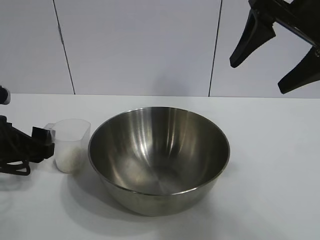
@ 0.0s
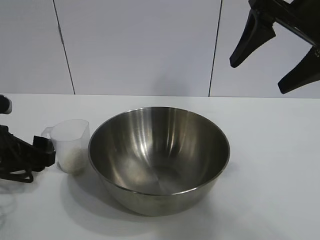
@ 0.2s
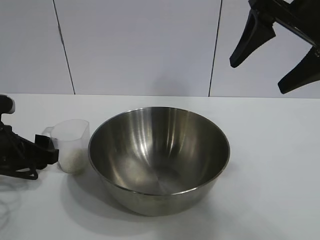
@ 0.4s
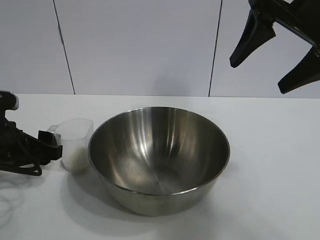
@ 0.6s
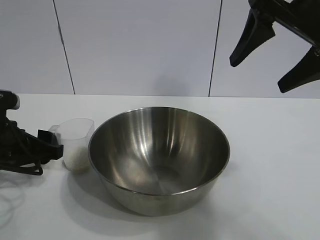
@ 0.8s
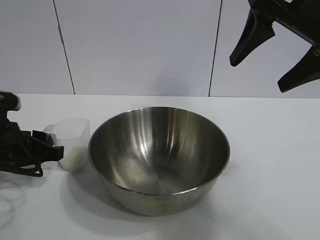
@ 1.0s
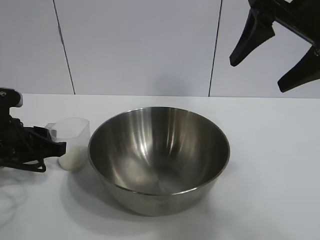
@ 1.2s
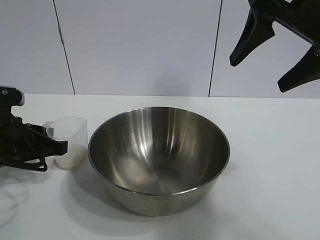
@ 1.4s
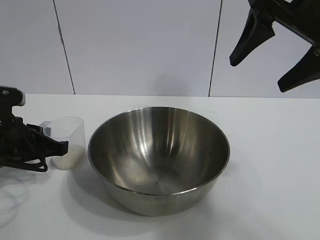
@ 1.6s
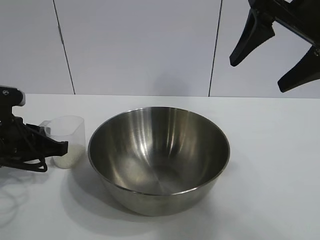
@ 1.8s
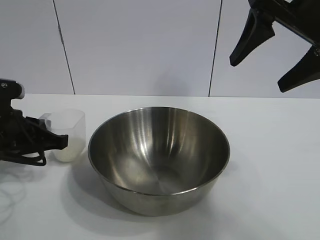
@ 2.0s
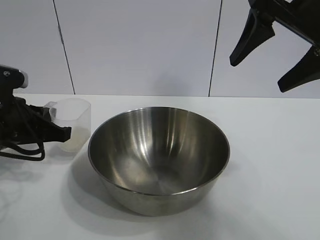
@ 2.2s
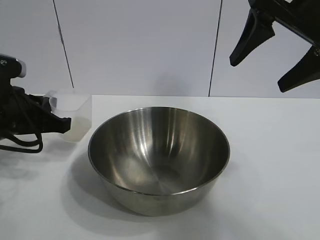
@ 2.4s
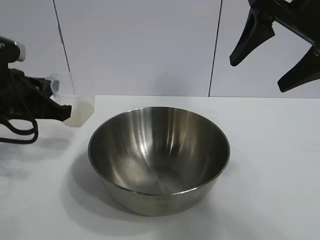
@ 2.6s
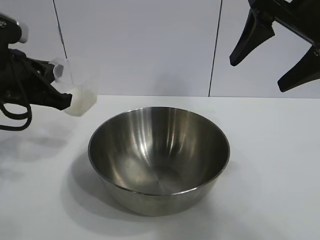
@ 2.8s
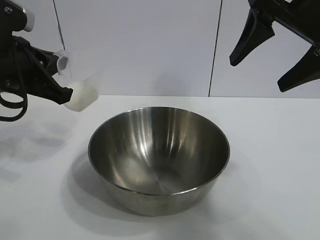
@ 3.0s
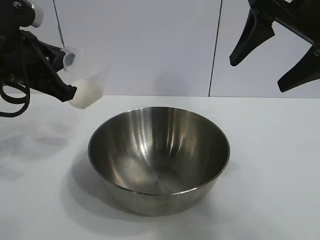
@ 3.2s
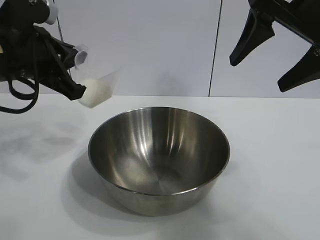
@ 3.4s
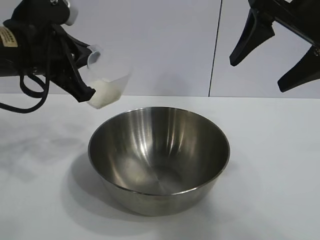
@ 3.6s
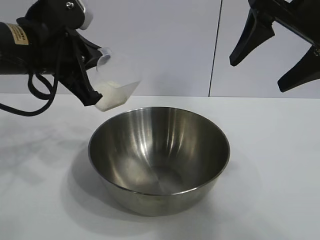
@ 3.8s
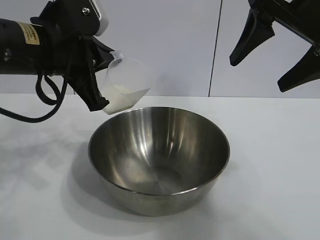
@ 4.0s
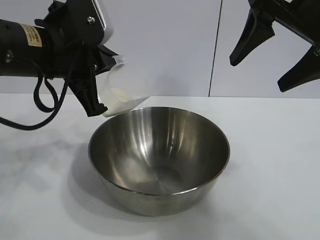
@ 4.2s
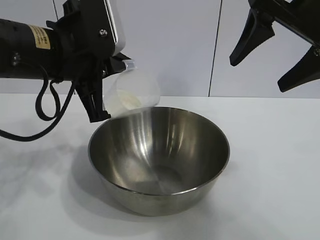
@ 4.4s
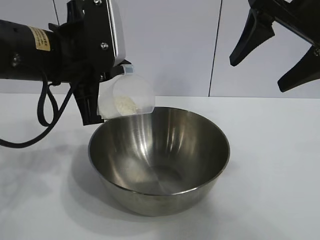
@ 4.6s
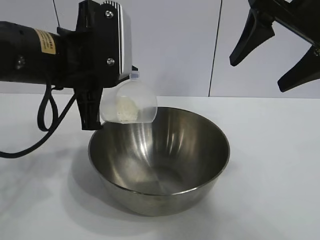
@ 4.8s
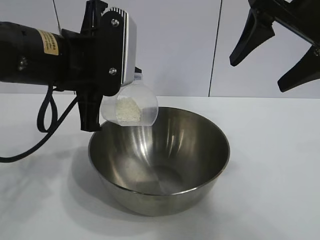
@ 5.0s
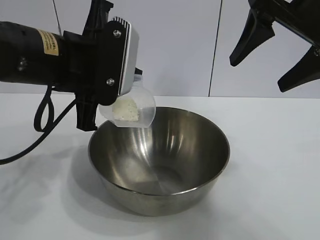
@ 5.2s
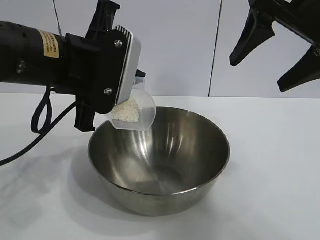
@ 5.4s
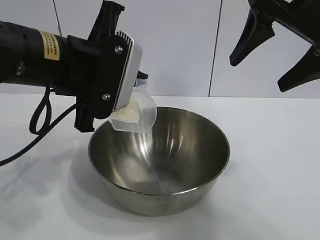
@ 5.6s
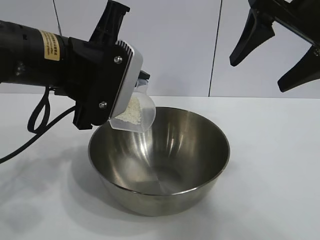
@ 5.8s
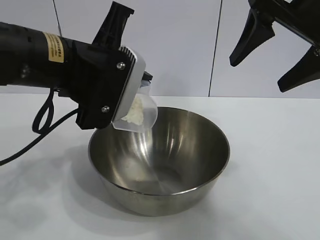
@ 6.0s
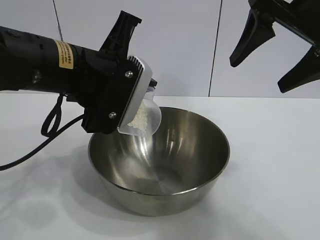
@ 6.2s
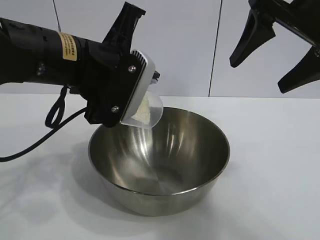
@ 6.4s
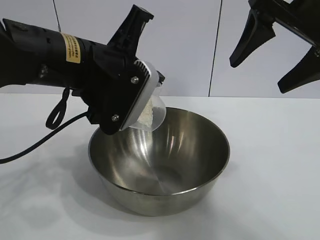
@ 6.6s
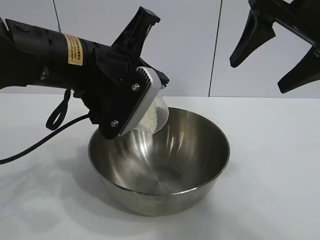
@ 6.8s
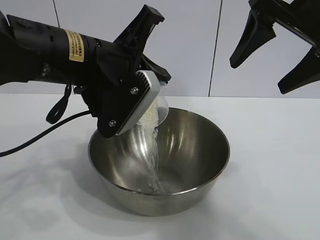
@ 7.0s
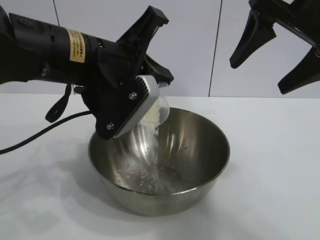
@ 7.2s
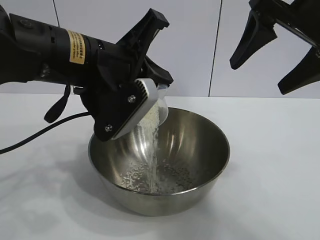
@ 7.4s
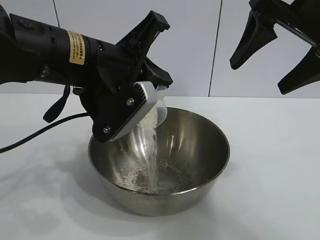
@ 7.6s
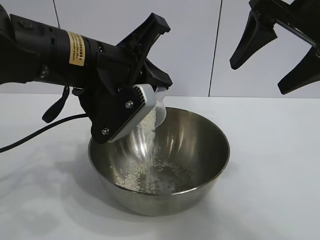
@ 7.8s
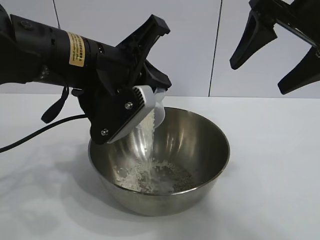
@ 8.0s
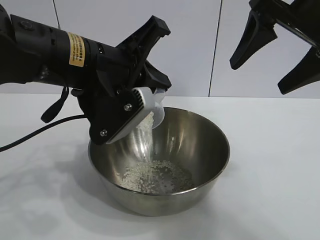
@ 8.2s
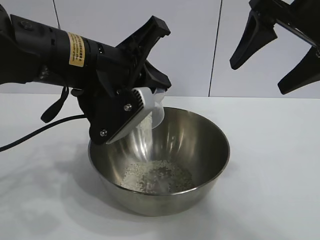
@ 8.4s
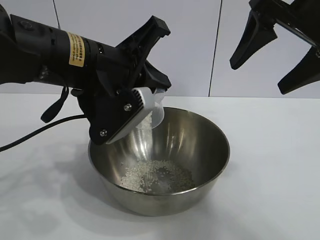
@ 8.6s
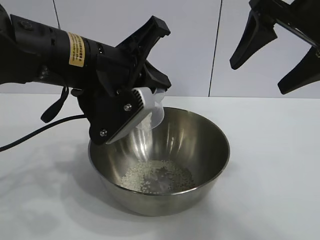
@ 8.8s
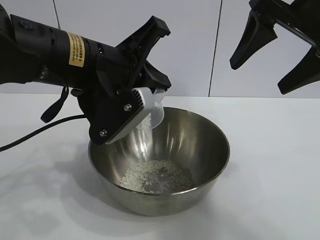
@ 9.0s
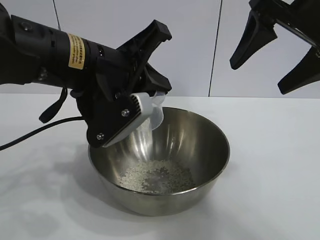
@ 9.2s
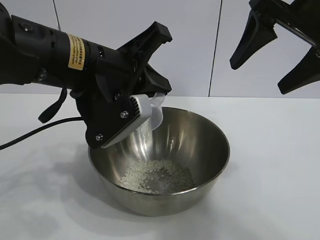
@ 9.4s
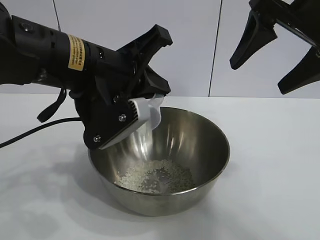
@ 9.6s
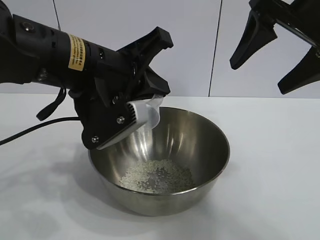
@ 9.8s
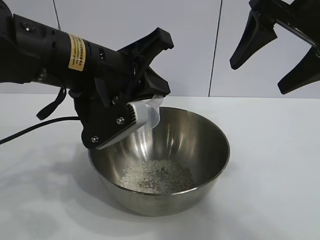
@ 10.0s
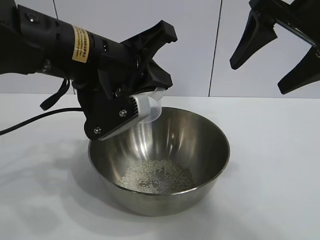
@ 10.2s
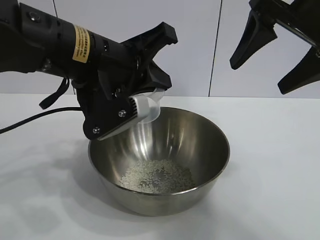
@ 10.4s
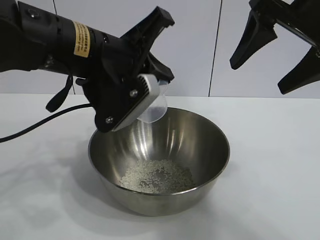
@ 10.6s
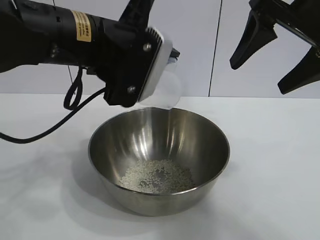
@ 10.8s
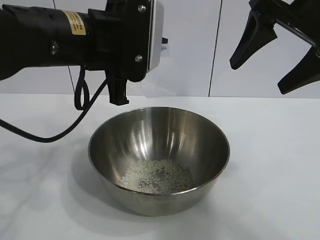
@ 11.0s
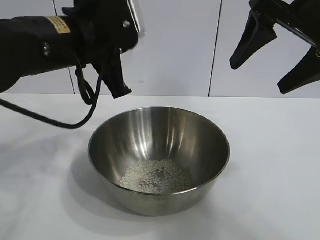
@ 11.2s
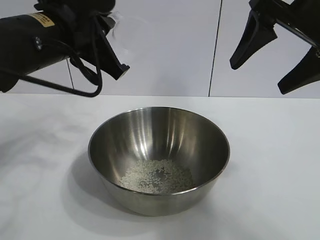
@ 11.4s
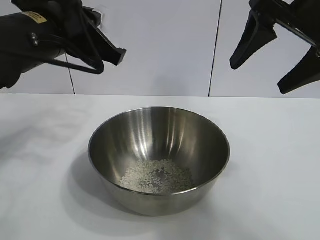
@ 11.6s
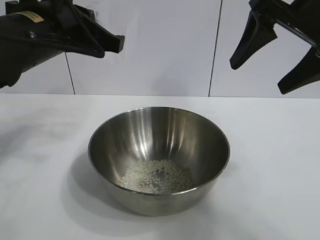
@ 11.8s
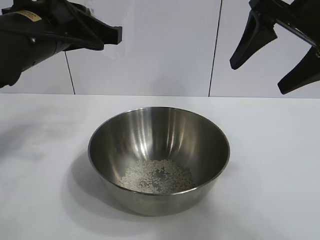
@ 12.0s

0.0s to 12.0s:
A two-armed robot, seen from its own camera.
Task of the whole recording: the right gripper grasp the rice container and place it in the center of the table, the left gripper grasp the rice scoop and pour the rice into the rice container.
Step, 2.0s to 10.2s: Pour the rice from the cup into the bowl with the left gripper.

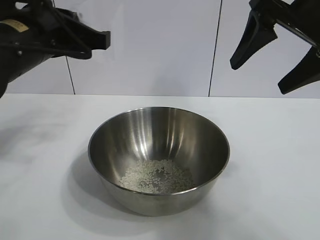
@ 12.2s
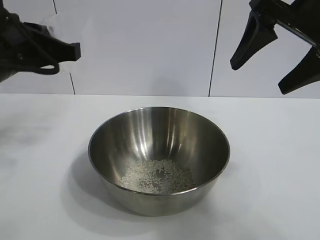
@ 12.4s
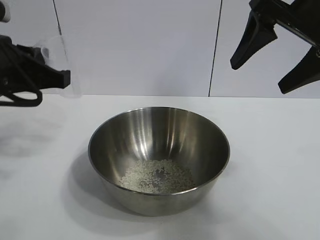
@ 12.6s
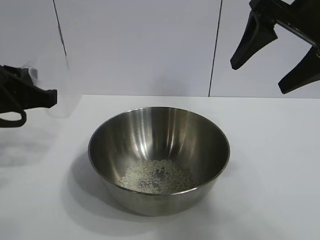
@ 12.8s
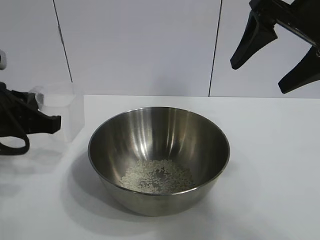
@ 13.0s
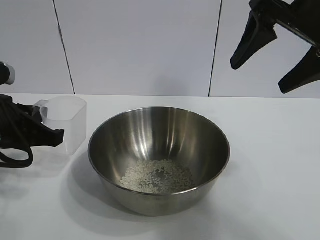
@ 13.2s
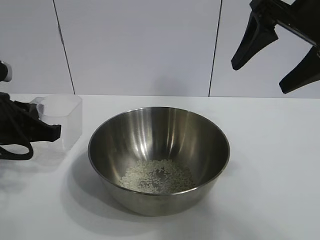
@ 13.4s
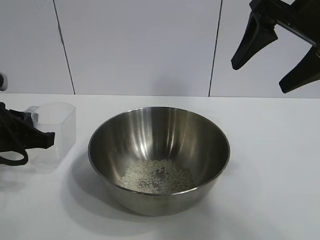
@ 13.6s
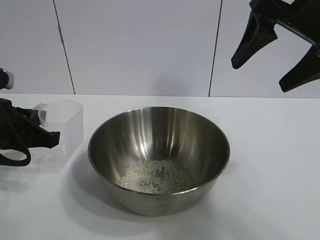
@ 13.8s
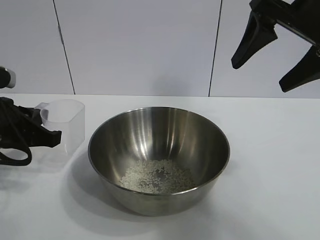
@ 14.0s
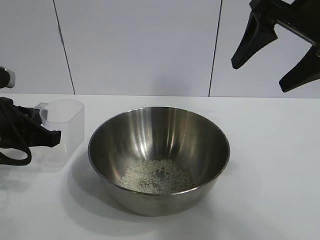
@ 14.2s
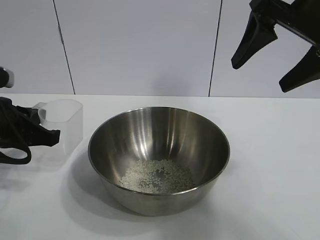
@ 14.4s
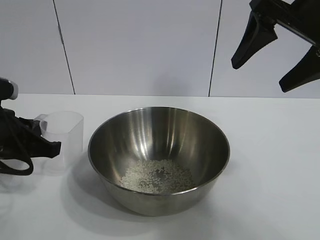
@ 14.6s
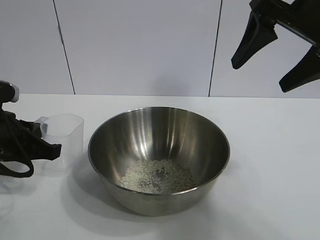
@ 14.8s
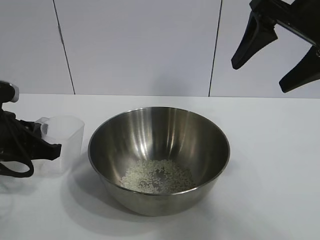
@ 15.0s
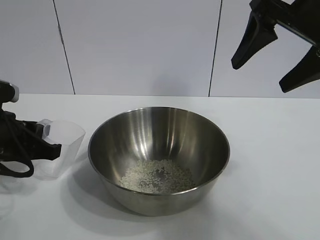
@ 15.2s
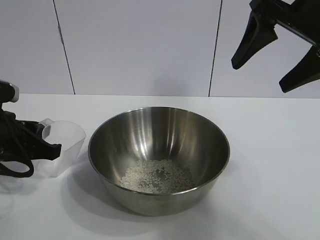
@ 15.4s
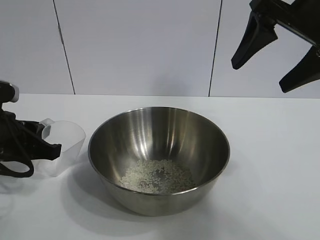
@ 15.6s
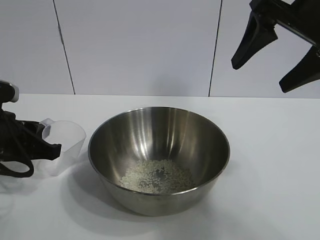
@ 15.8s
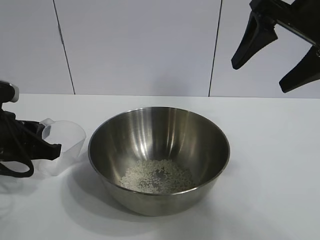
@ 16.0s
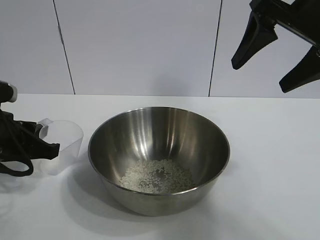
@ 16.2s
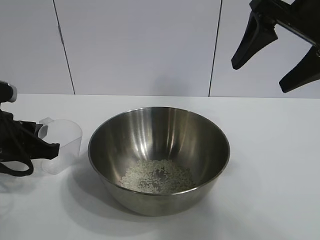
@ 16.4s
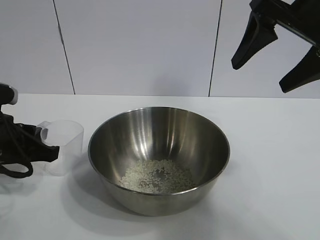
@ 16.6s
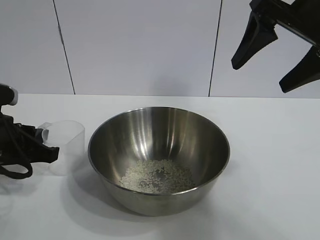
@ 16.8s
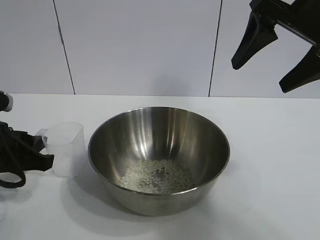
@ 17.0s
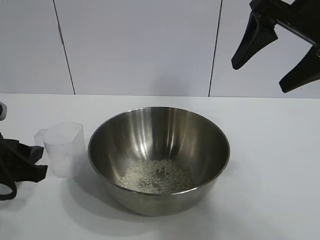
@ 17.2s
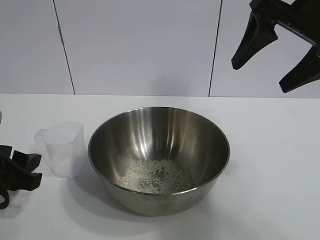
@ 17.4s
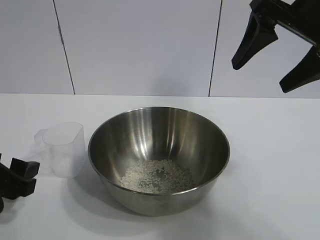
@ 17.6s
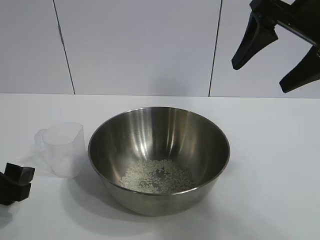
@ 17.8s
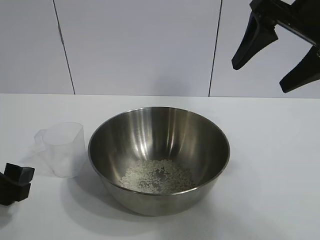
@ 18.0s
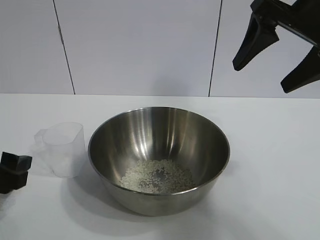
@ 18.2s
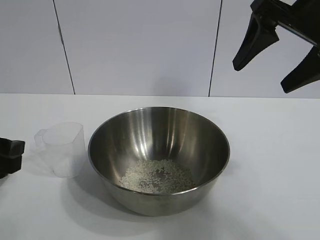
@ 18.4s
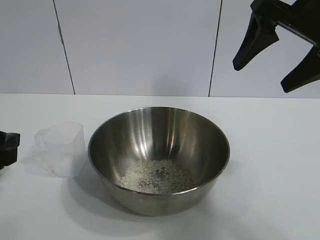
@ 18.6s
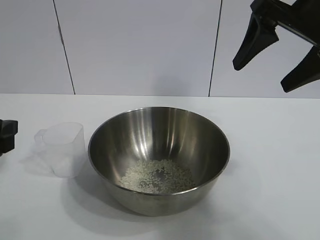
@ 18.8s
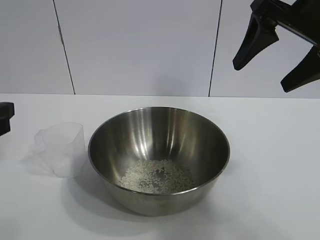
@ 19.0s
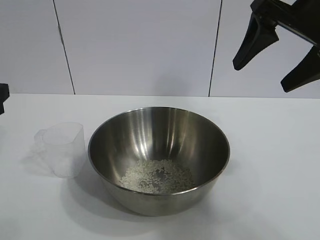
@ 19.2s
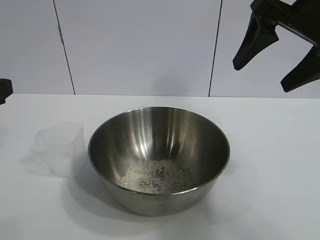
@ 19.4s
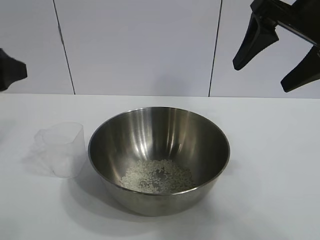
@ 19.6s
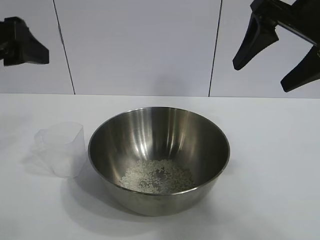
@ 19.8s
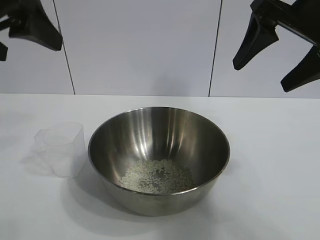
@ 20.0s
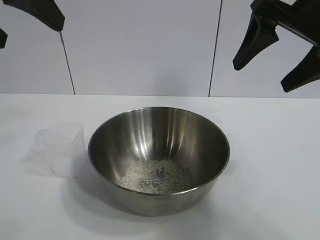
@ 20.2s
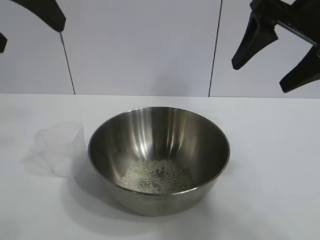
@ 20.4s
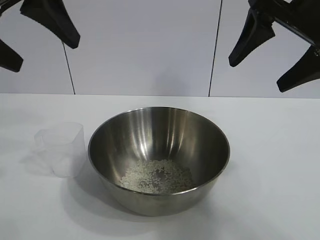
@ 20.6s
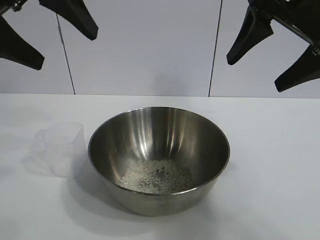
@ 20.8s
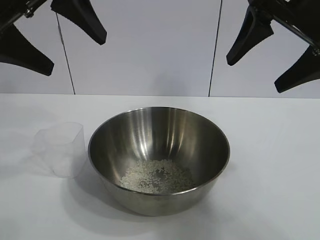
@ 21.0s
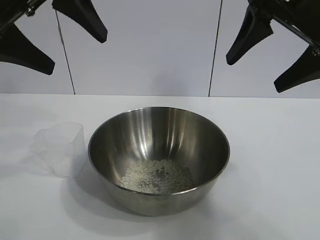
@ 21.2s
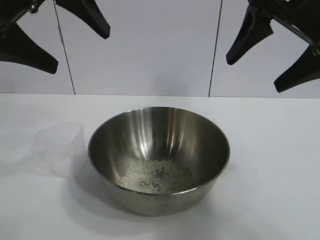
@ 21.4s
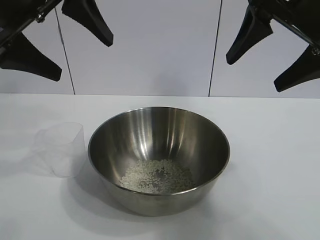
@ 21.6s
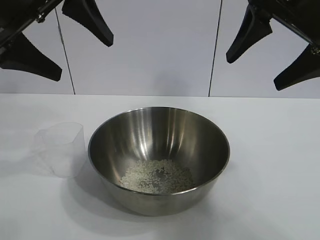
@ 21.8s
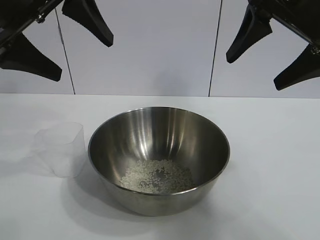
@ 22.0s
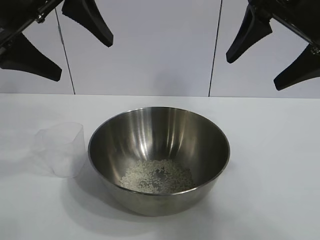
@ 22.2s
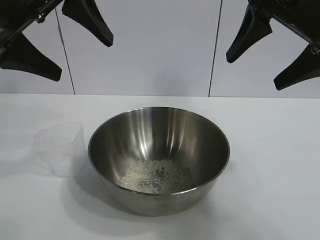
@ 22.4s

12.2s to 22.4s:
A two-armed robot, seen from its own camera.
Task of the whole recording: the right gripper grasp the rice container and place it in the center of the table, the left gripper grasp the rice scoop and pour the rice into the rice container.
Step, 12.2s to 16.4s: Place the cup on the table with the left gripper.
